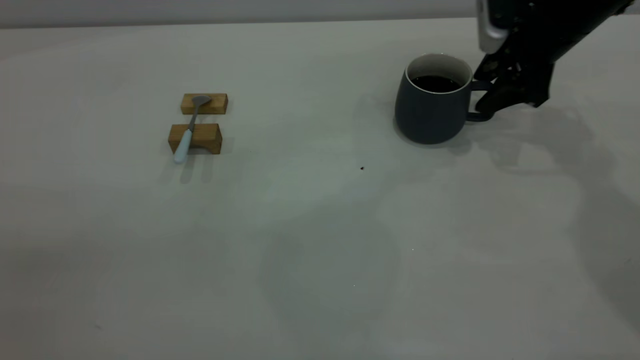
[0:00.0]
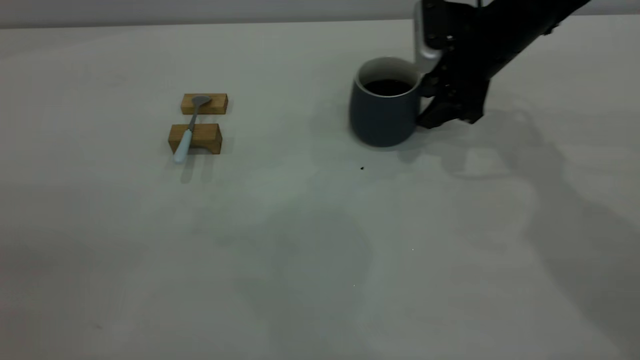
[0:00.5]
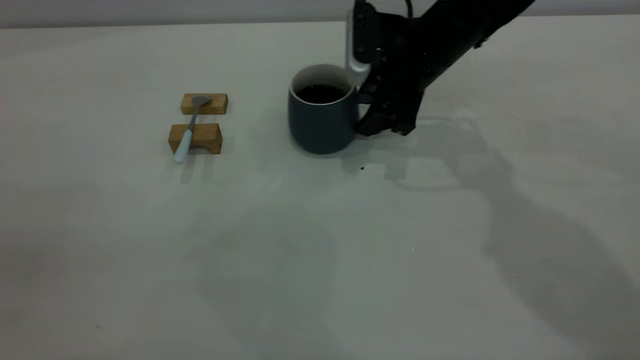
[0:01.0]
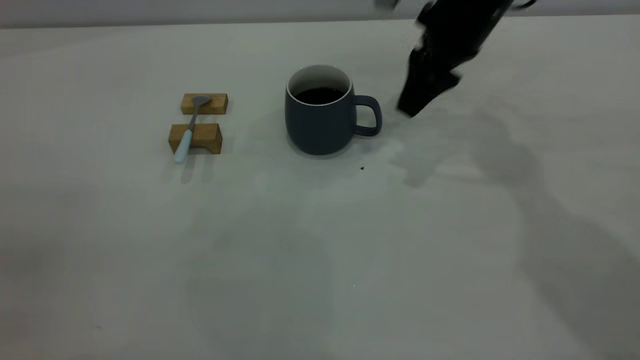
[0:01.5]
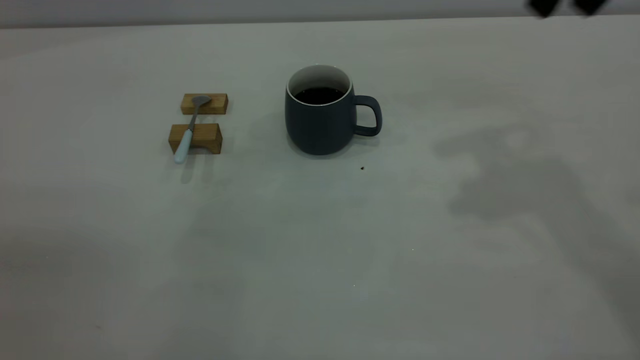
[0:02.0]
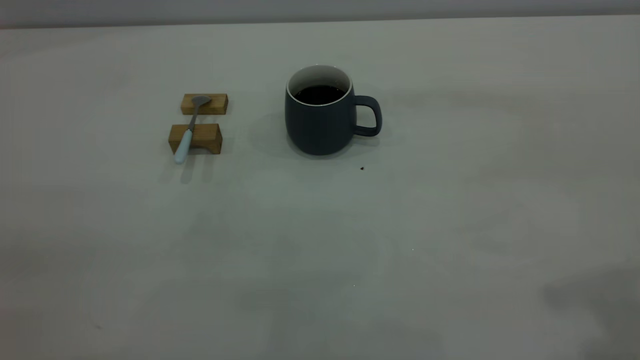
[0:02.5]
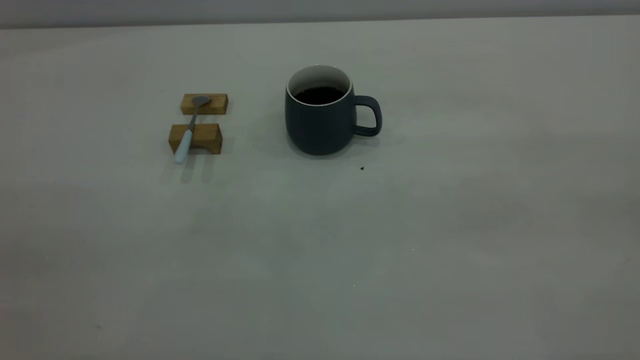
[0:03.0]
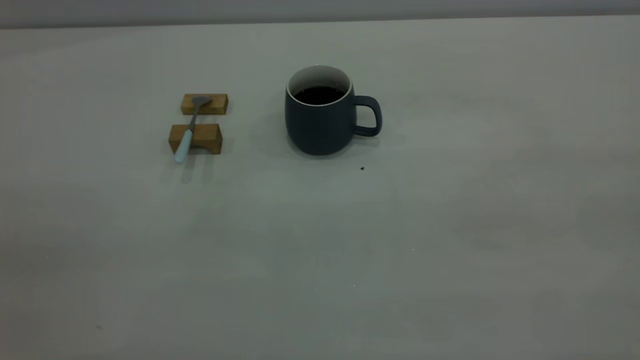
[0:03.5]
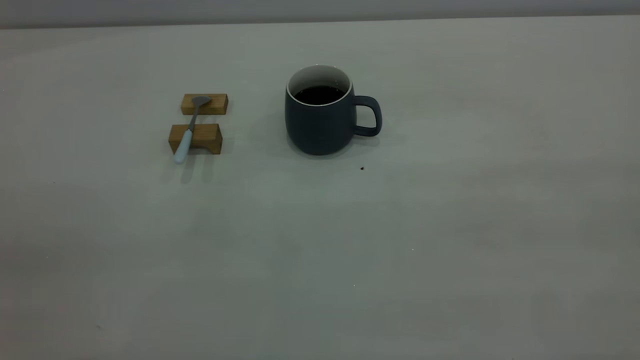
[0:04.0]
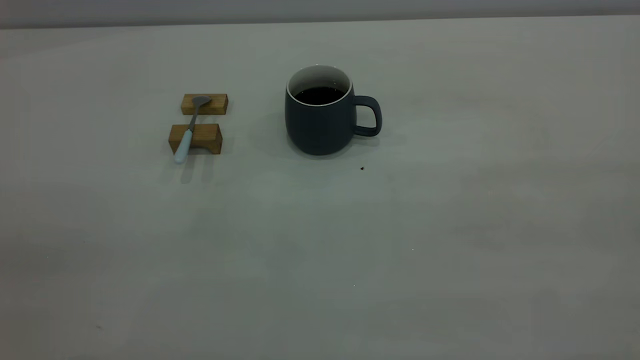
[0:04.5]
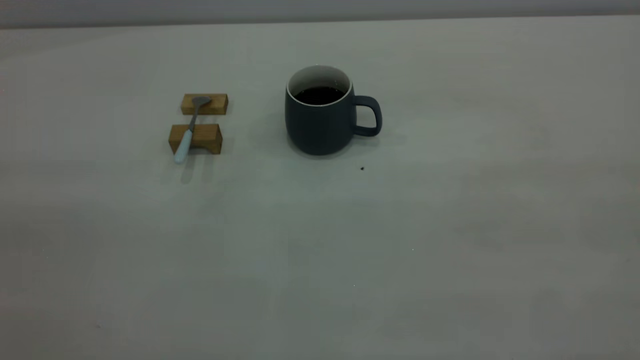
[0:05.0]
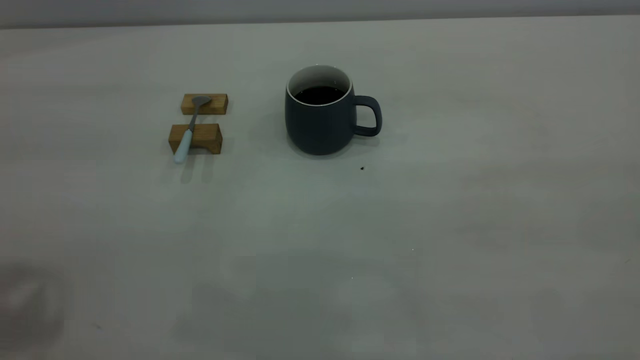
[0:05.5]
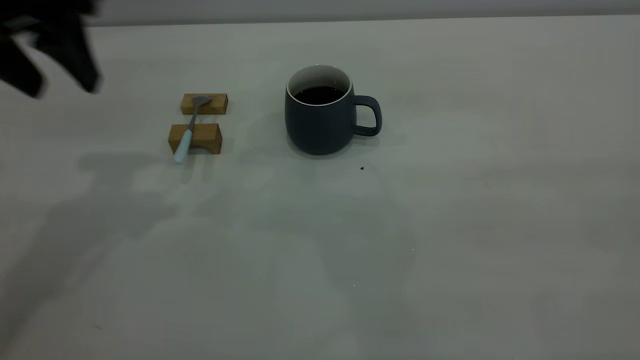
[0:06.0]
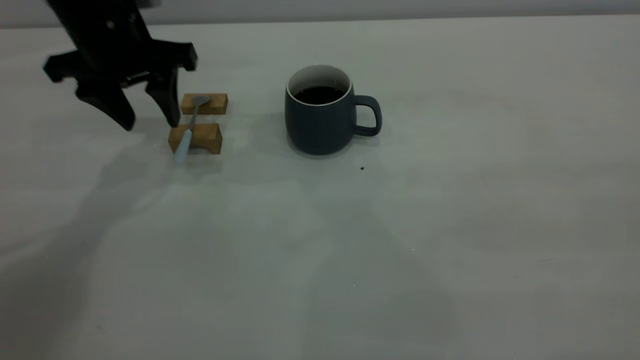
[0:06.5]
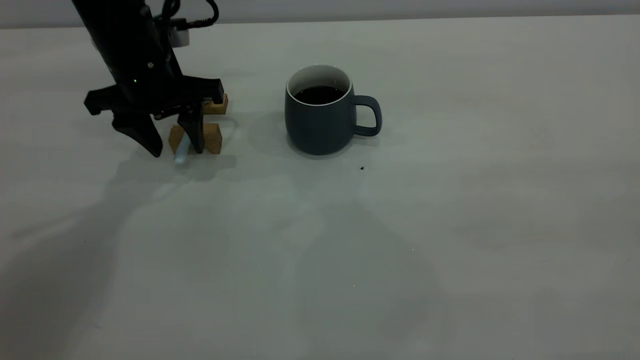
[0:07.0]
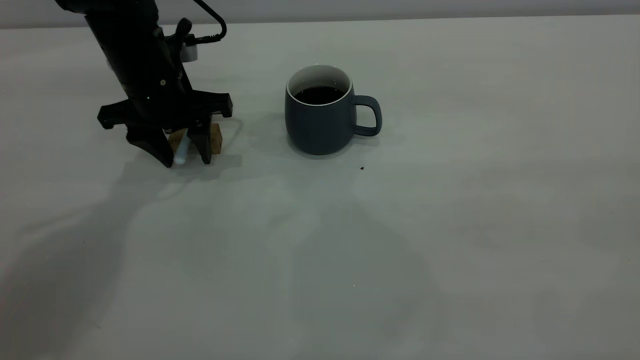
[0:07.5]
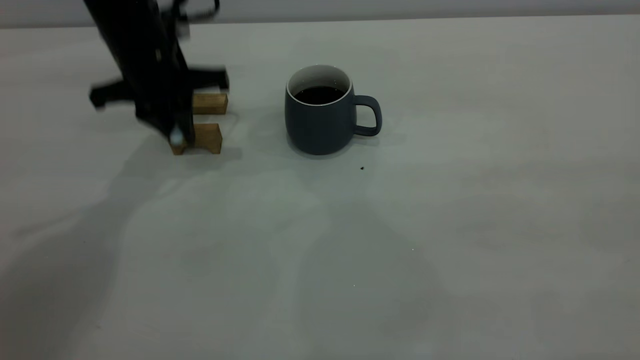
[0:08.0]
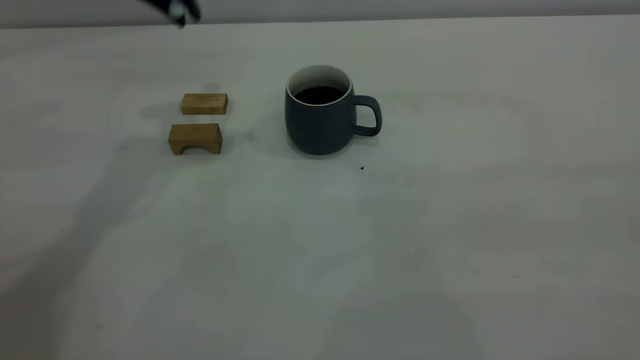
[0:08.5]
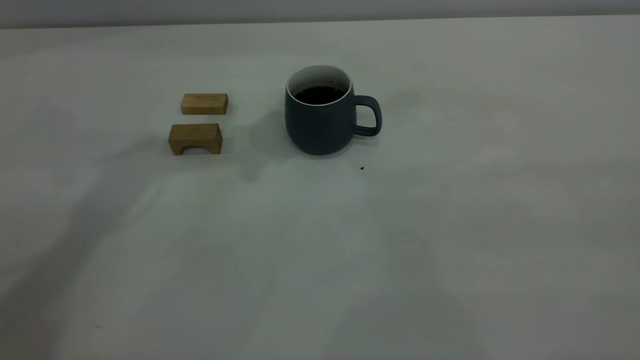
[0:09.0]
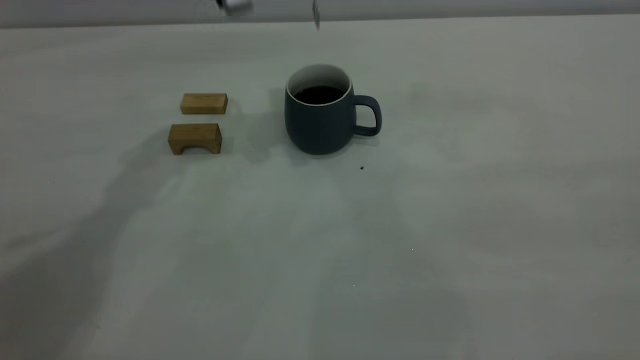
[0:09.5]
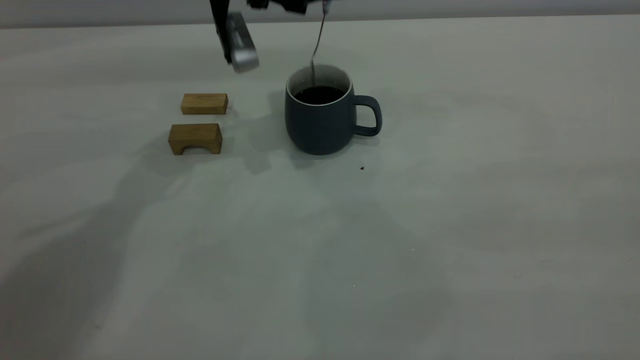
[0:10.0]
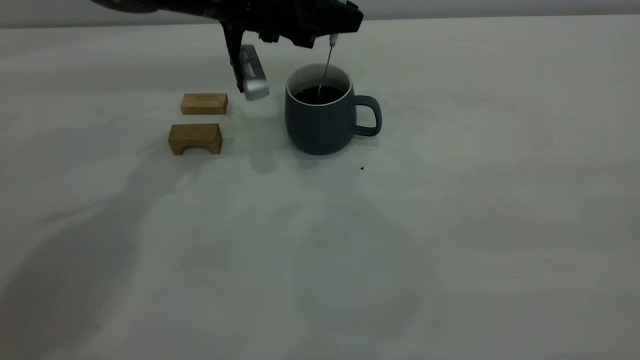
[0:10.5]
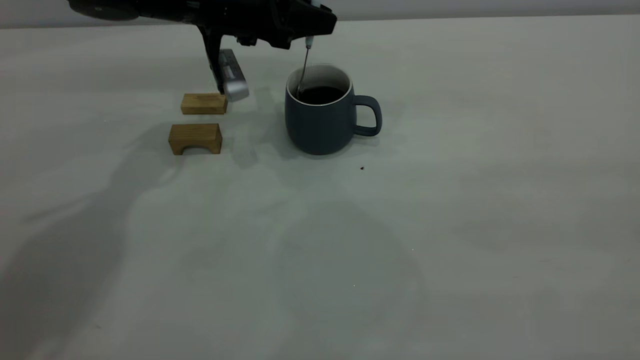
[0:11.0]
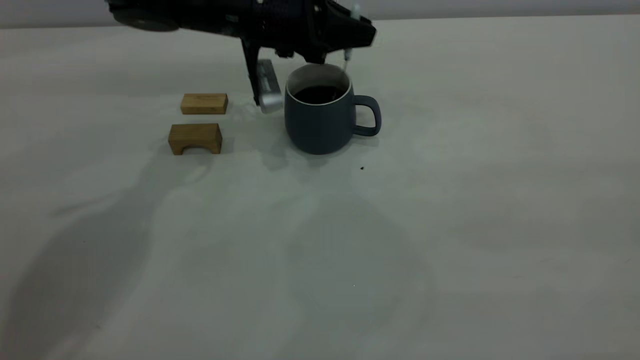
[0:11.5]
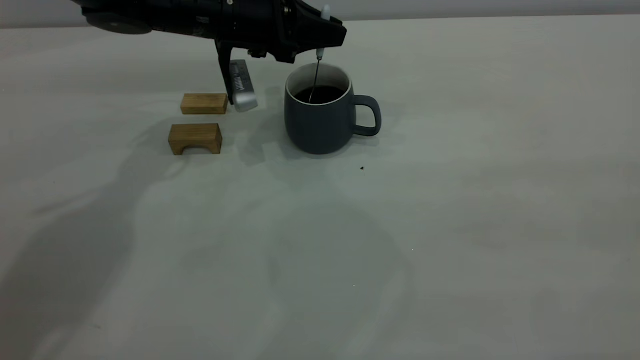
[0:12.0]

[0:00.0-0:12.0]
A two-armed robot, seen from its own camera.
Step, 0:02.0 to 0:08.0: Pick up the spoon.
0:00.0 to 0:02.0: The right gripper is displaced upward and backward by approximately 25 cm.
0:04.0 to 0:06.0: The left gripper is displaced forward by roughly 35 cm, and opens up.
0:06.0 to 0:08.0: The left gripper travels downward and forward by some 15 cm, and closes up.
0:08.0 to 0:10.0: The left gripper heads to the right, covering approximately 10 cm, and reaches approximately 20 cm upward, then returns.
0:10.0 to 0:12.0: The left gripper is displaced downward by roughly 5 cm.

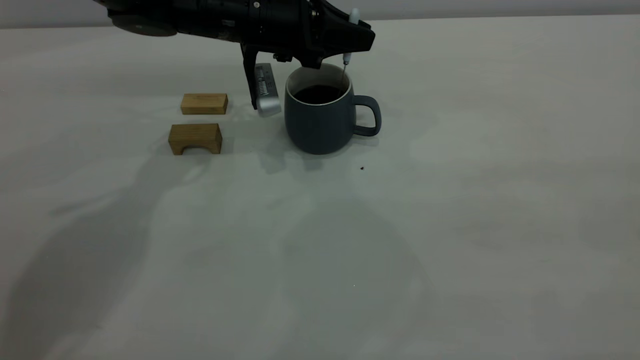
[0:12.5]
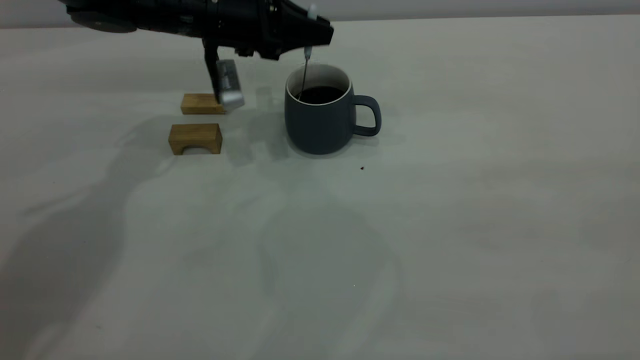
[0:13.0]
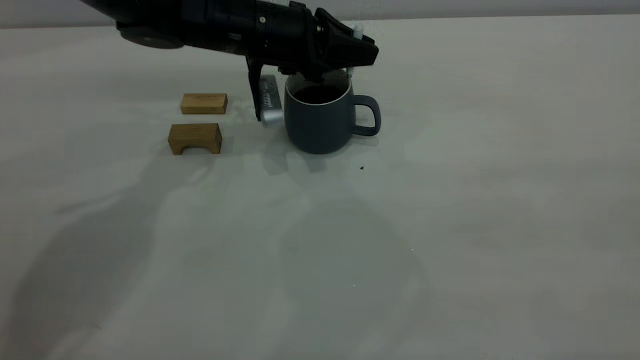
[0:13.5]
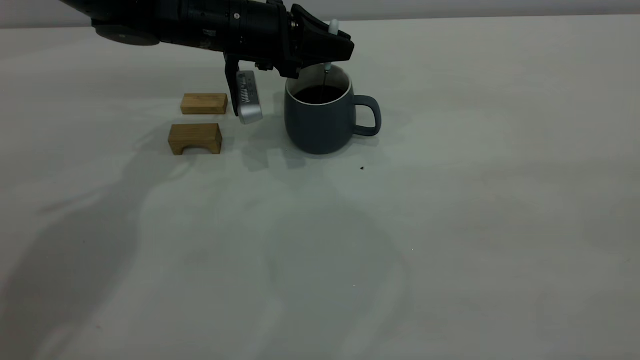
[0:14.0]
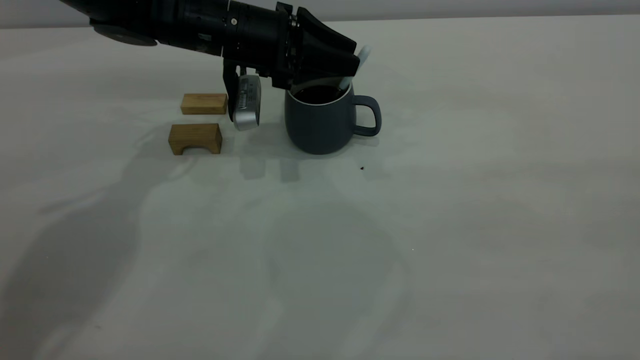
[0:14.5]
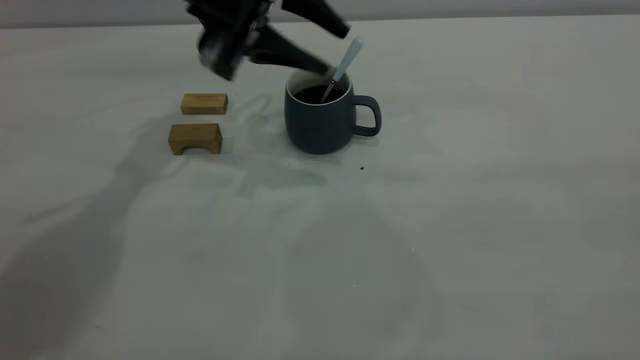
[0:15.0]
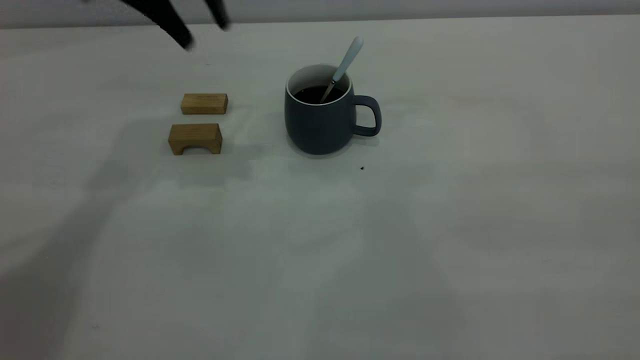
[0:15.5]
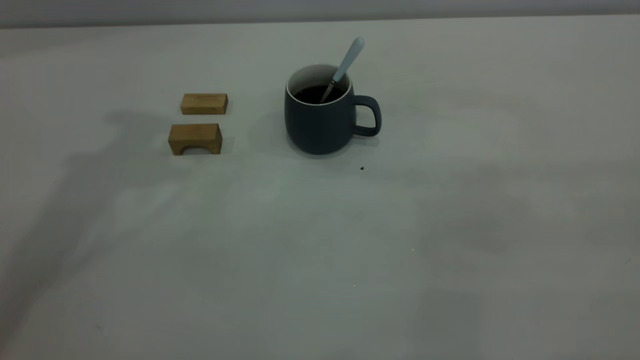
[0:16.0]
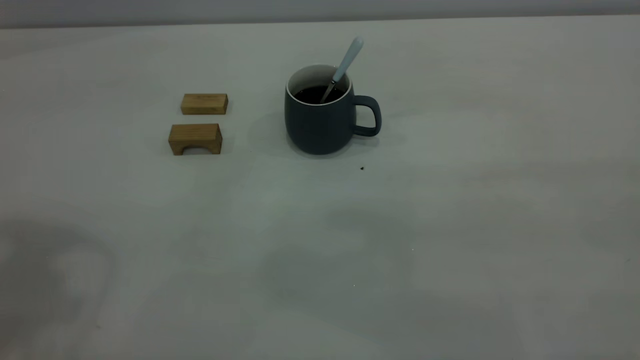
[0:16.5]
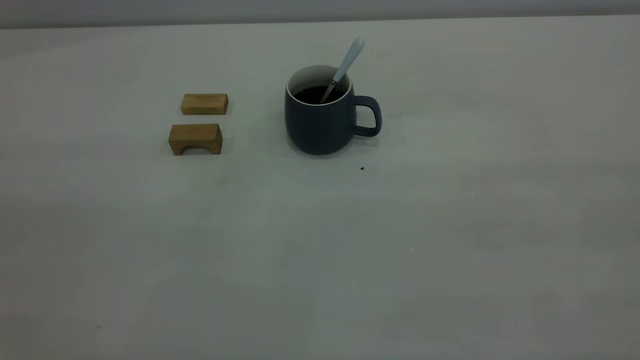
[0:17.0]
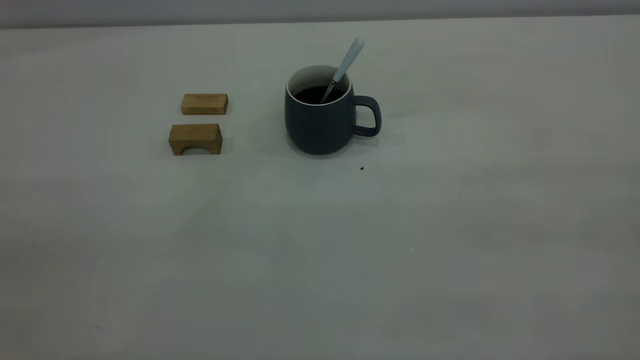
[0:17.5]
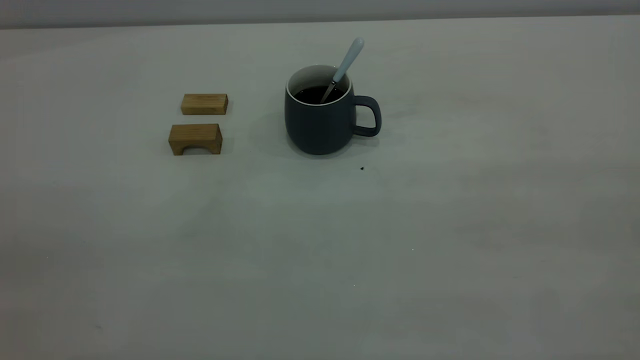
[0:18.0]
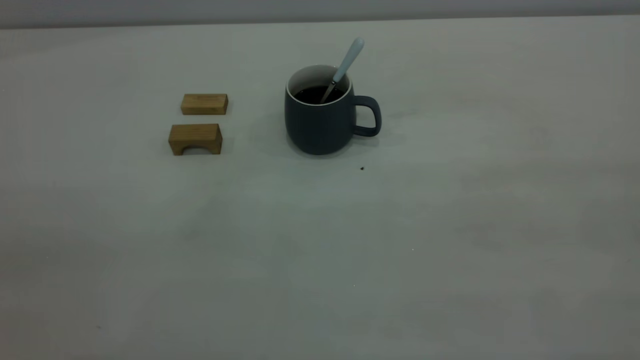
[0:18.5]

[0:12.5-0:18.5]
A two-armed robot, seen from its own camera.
Step, 0:12.5 to 0:15.0: Stir the coffee in the cup.
0:12.5 to 0:14.5: The left gripper opens its fingers.
0:14.5 to 0:16.5: The left gripper goes roughly 40 cm upward, backward and to the left.
